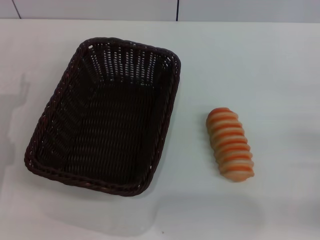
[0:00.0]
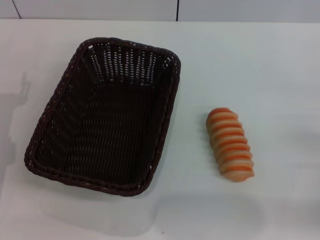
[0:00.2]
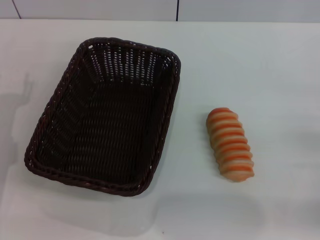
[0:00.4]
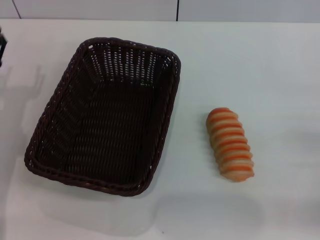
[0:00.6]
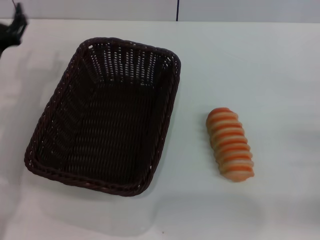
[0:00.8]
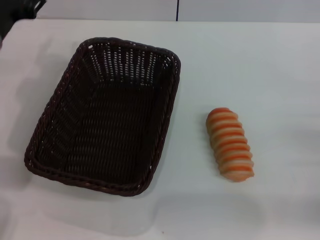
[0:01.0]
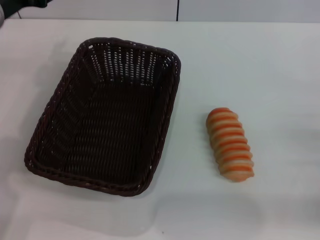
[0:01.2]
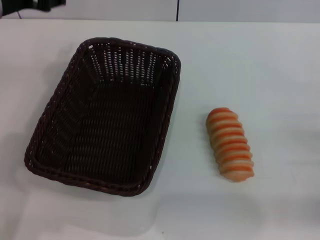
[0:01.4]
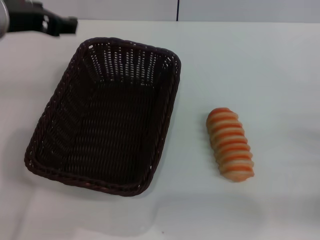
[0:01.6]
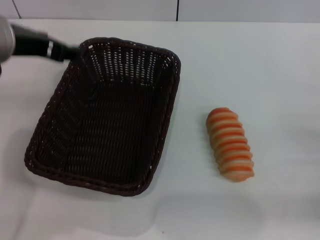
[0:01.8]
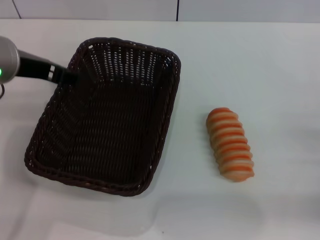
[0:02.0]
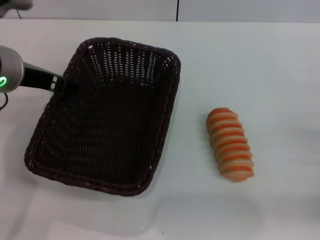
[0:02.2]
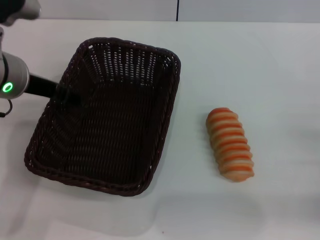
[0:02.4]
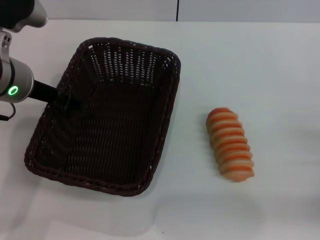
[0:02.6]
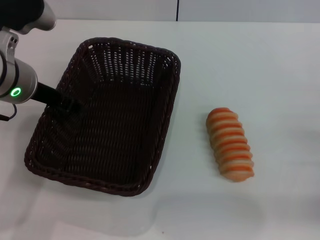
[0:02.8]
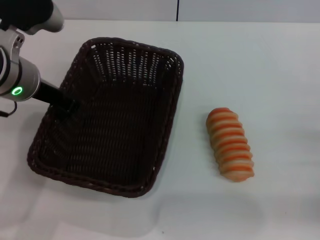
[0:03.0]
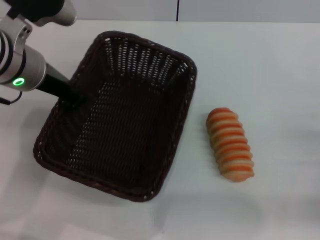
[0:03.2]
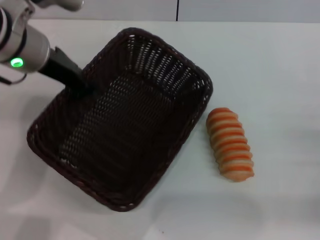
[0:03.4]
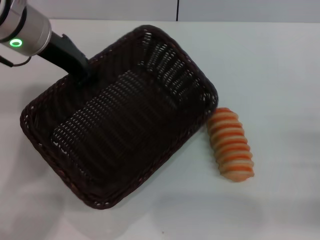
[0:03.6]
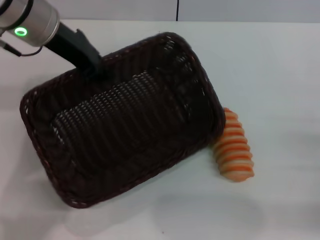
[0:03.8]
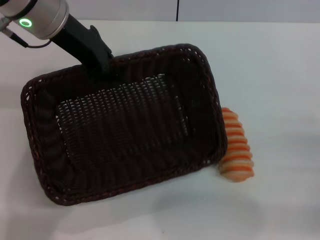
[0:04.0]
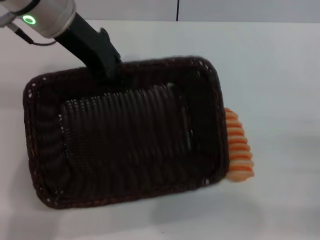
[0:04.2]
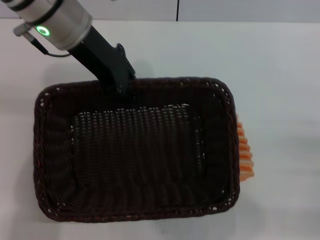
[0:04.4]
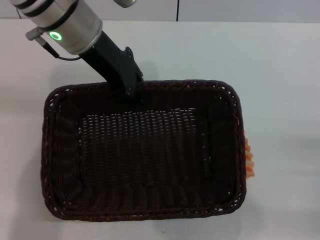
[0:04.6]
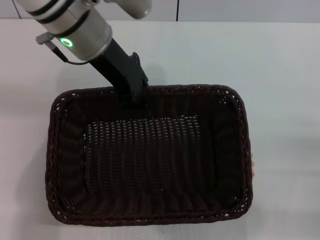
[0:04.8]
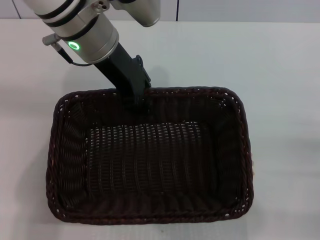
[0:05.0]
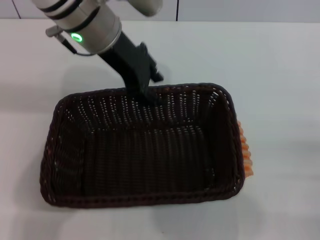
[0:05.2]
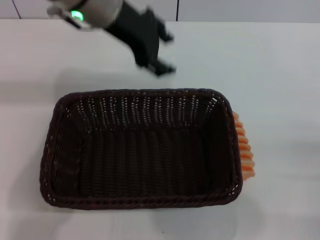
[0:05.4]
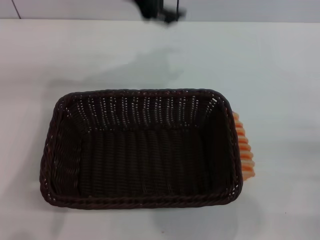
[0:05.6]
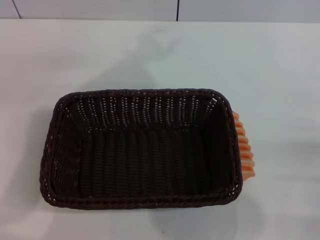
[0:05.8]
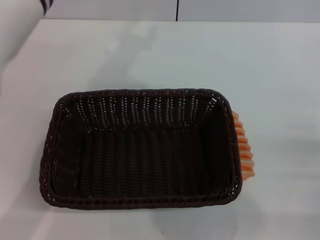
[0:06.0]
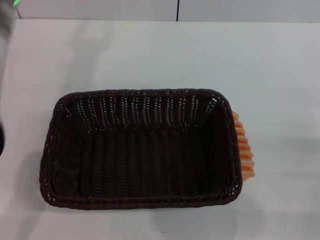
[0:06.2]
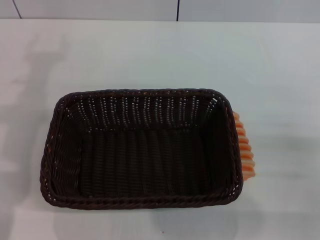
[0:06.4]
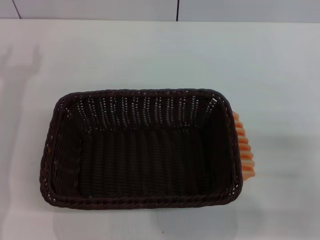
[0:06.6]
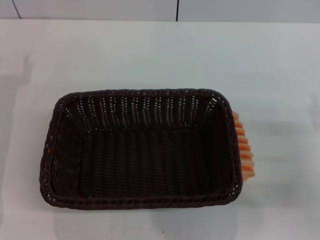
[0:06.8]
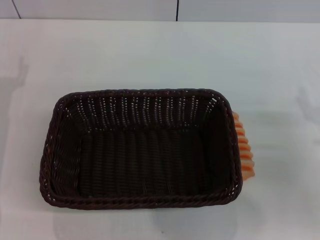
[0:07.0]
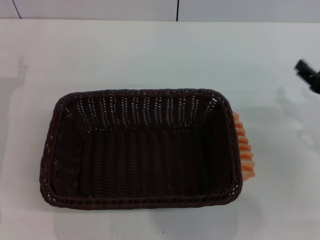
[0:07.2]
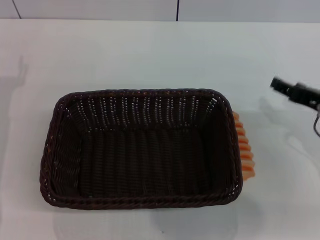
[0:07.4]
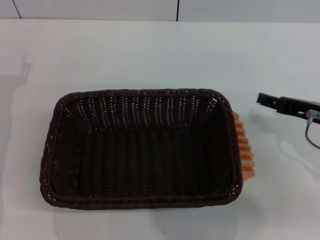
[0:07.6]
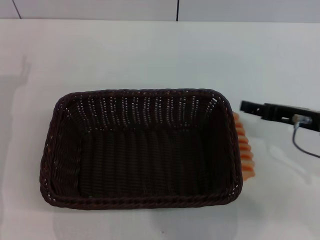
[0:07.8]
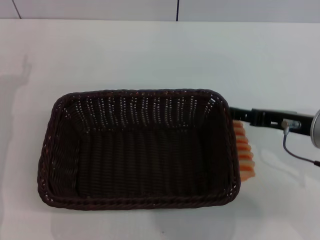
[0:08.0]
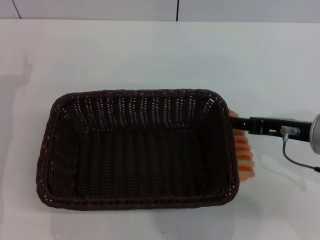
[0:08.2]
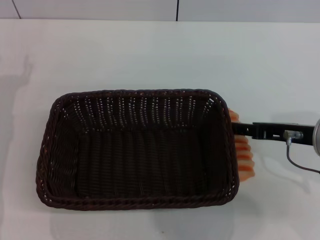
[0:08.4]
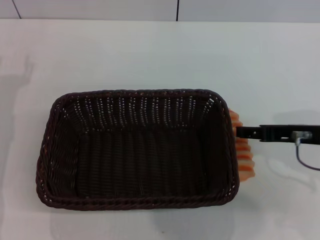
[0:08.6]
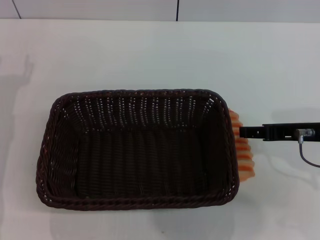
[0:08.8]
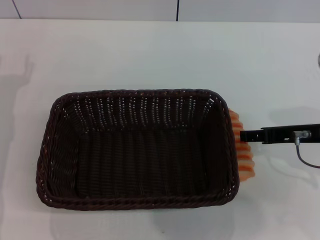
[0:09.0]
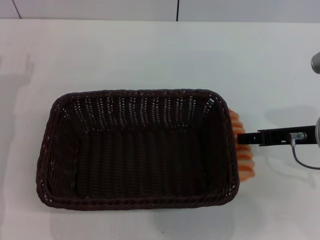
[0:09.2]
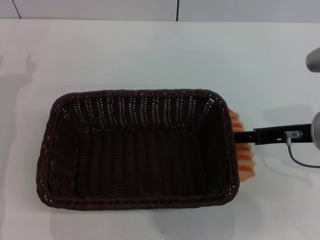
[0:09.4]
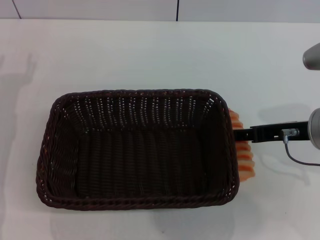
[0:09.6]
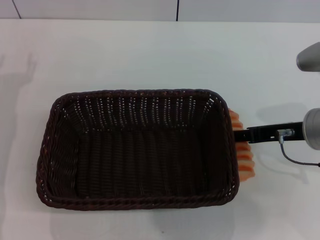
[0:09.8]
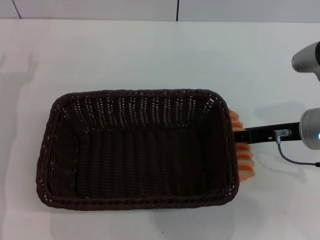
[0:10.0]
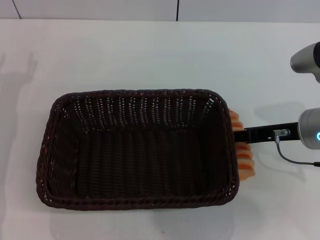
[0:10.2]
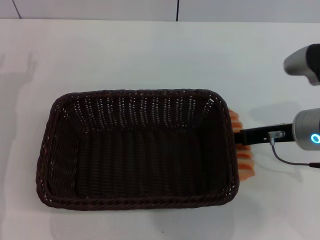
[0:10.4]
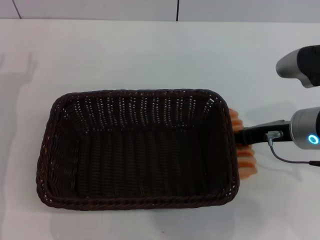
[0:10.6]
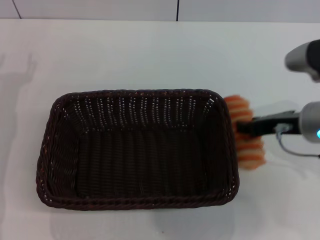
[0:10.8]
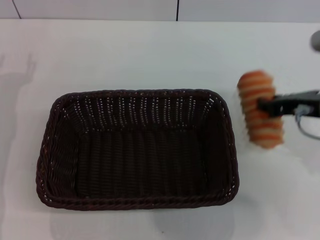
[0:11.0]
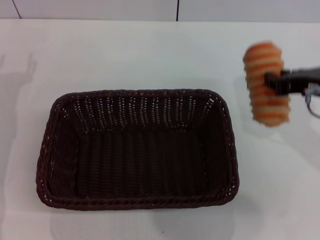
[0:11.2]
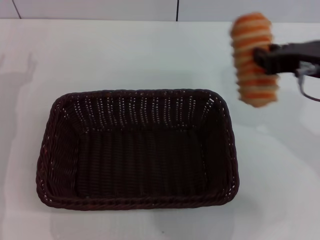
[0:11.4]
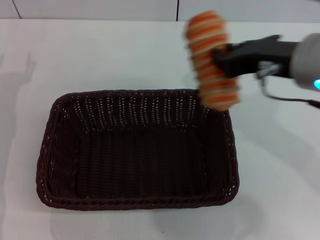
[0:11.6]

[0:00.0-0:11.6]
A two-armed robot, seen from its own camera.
Step, 0:00.0 to 0:03.4: Pick up the dark basket with the left gripper.
Step, 0:03.6 to 0:05.4: Place the dark basket in the center of view with the left gripper.
Step, 0:05.6 to 0:11.0: Pick up the long bread with the right gripper.
0:00.0 to 0:01.4: The left gripper travels upward and to the right by about 20 cm.
0:01.4 to 0:02.8: The left gripper heads downward, covering about 5 cm.
0:02.8 to 0:04.4: The left gripper is displaced upward, forward and to the right by some 10 cm, and closes its fingers.
0:04.4 to 0:05.8: The left gripper opens.
0:05.8 to 0:07.2: The right gripper goes roughly 10 cm forward, upward and to the left.
0:07.2 to 0:08.8: The right gripper changes place by roughly 5 cm.
0:08.8 to 0:10.2: The grippers stay close to where they were, moving slightly.
0:10.2 to 0:11.6: The right gripper moves upward and to the left, roughly 15 cm, and closes.

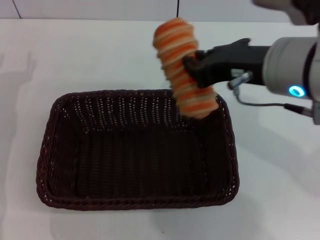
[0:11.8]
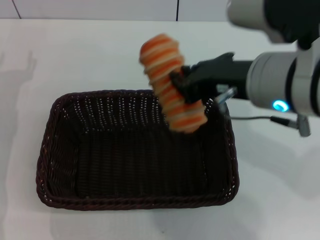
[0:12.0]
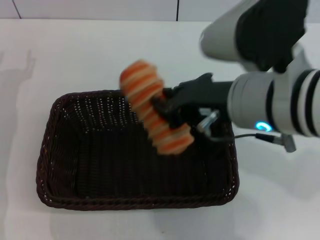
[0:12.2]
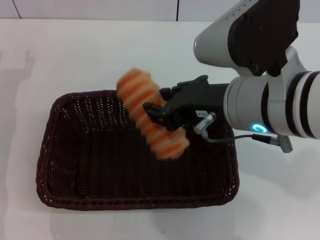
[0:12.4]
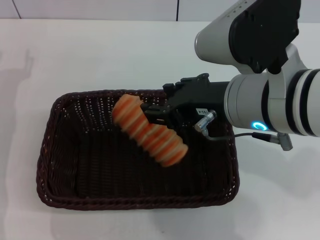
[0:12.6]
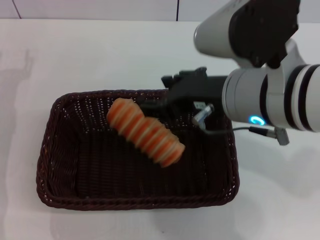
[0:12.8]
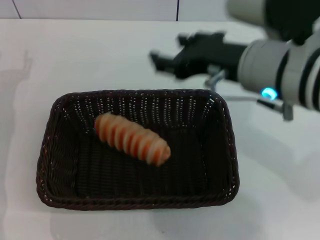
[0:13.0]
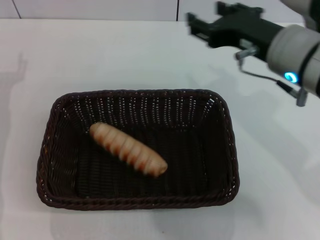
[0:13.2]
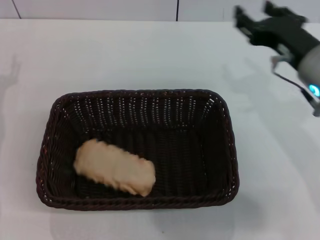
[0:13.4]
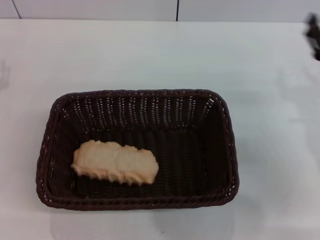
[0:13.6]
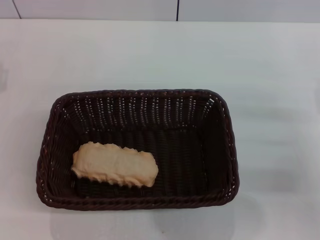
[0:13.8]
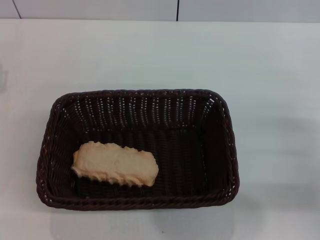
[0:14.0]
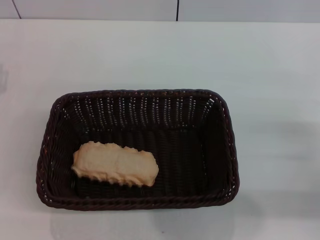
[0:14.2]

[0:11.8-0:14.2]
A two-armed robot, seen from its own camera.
Step, 0:11.8 to 0:13.0: Place the long bread into the dark basket with the right gripper.
0:11.8 to 0:13.0: The right gripper opens.
0:13.0 to 0:14.2: The right gripper heads to the right and downward, covering about 25 cm.
